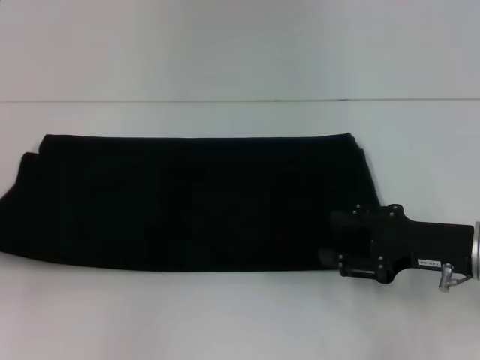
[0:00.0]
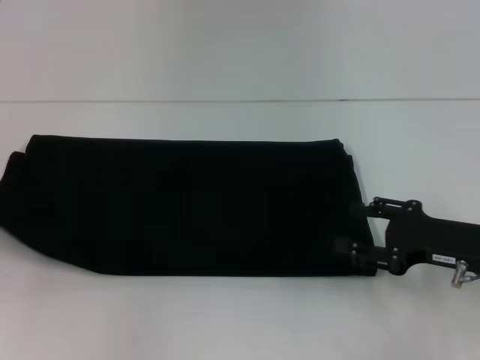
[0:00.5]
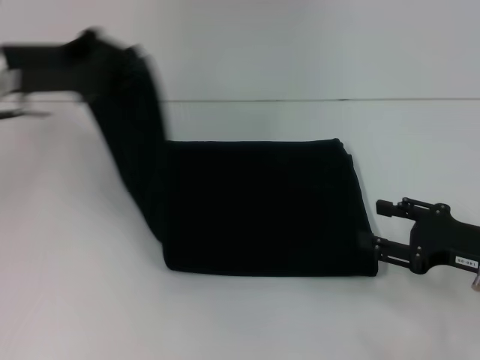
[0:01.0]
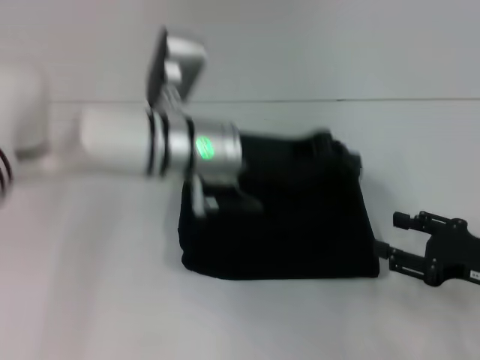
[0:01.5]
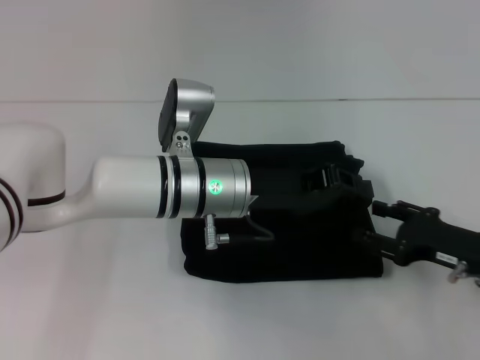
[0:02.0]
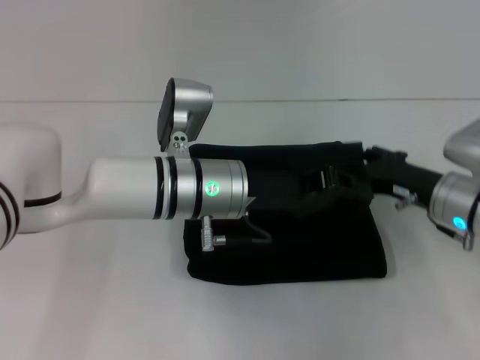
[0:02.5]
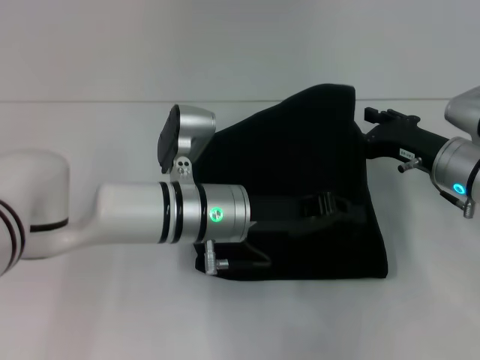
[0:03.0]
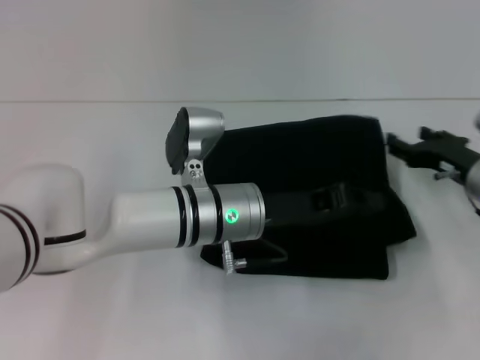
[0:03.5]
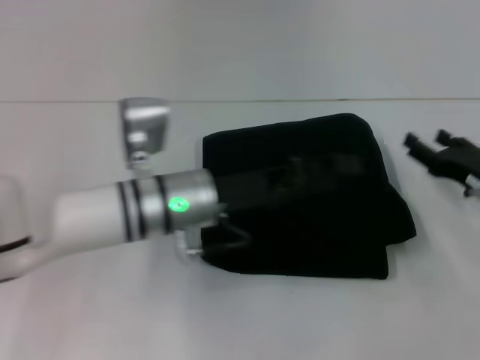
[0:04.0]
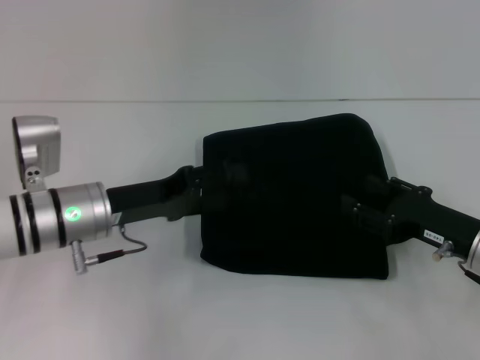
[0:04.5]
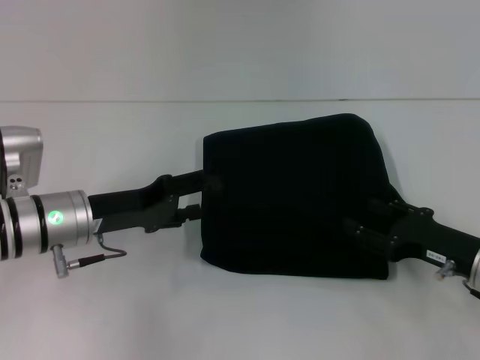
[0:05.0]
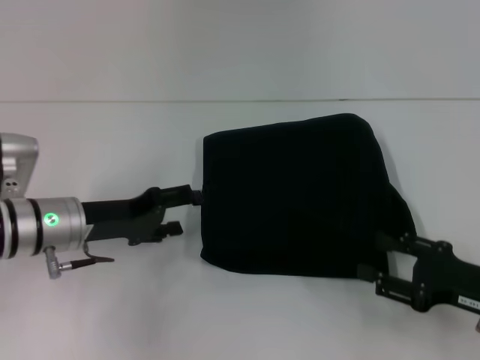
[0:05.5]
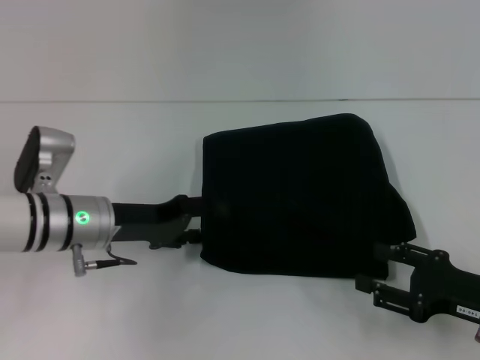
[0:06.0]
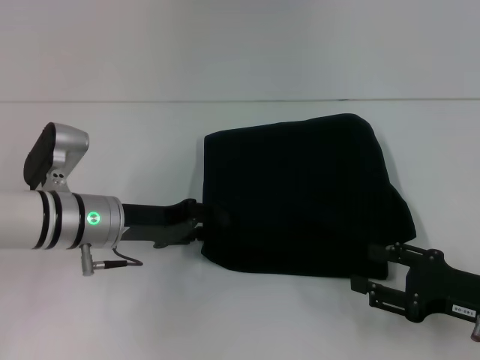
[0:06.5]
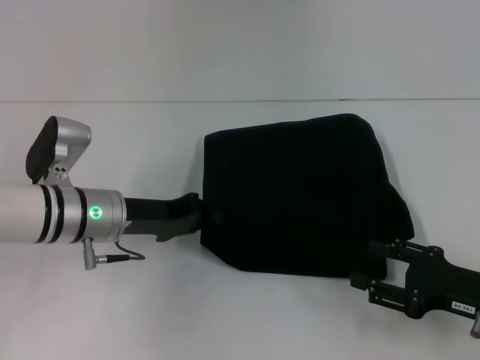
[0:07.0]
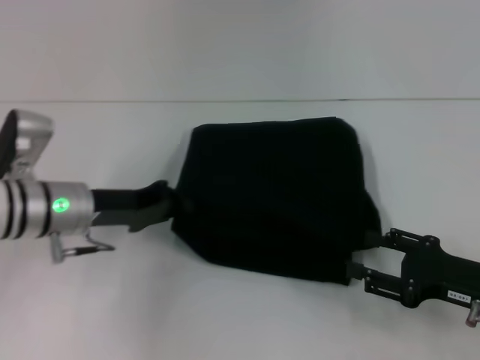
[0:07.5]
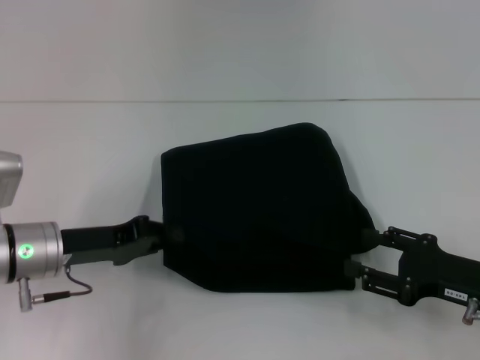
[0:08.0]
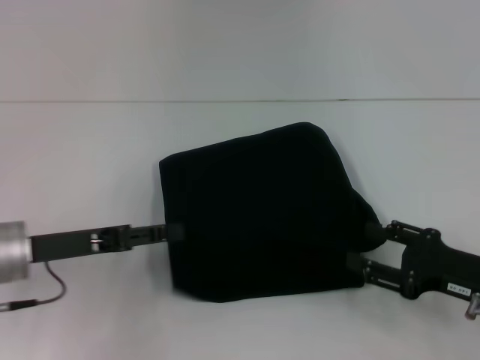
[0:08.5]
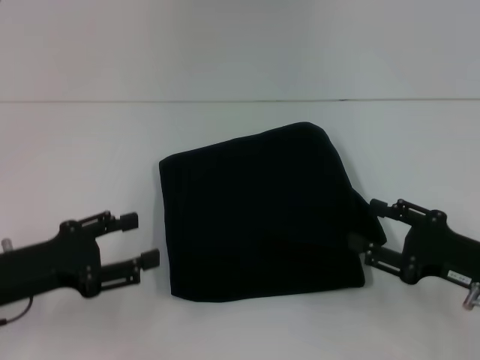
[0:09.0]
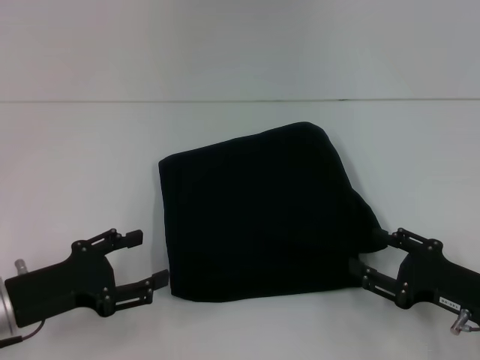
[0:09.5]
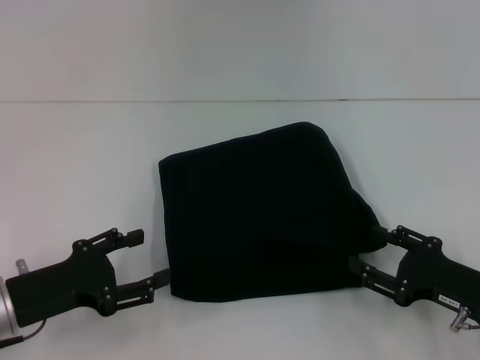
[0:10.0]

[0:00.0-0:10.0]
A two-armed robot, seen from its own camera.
Step, 0.0 to 2.0 s: Fold the clothes with your left hand.
0.0 to 2.0 s: The left gripper is displaced to the right by approximately 35 cm.
2.0 to 4.0 s: The left gripper opens.
4.0 to 6.0 s: The left gripper is displaced to the left by about 10 cm, and opens its fingers. Meanwhile the right gripper is displaced backward by roughly 10 cm.
6.0 to 8.0 s: The left gripper moves roughly 5 cm, and closes.
8.0 to 10.0 s: The left gripper goes about 5 cm backward, and opens its fingers.

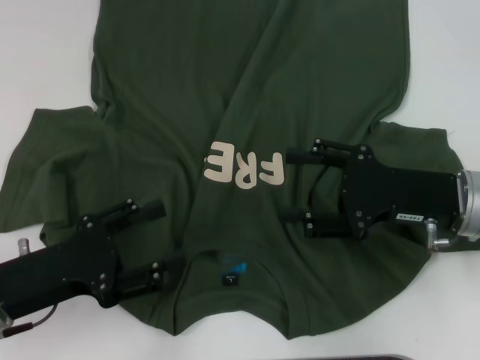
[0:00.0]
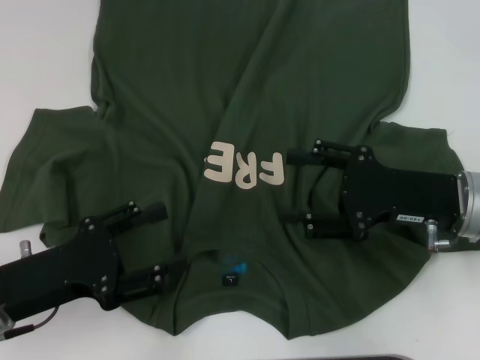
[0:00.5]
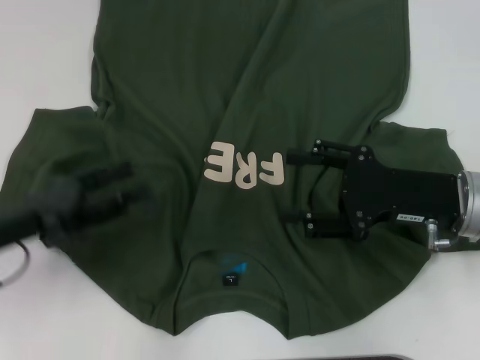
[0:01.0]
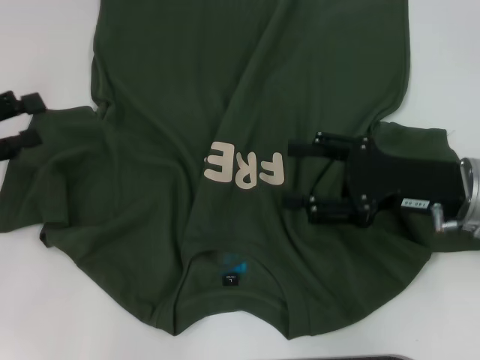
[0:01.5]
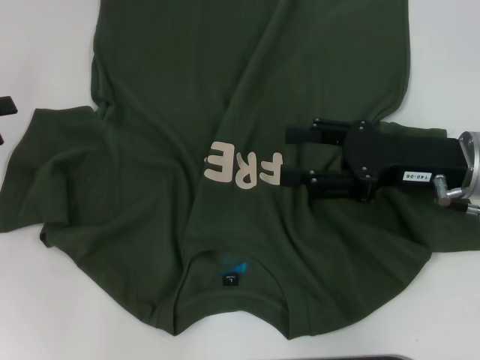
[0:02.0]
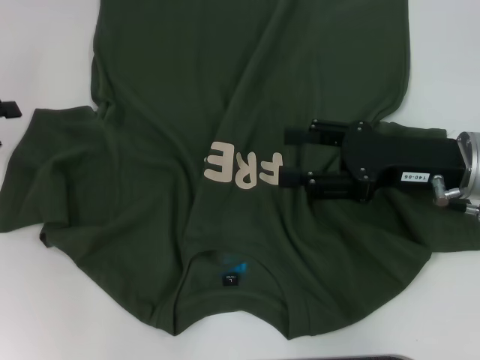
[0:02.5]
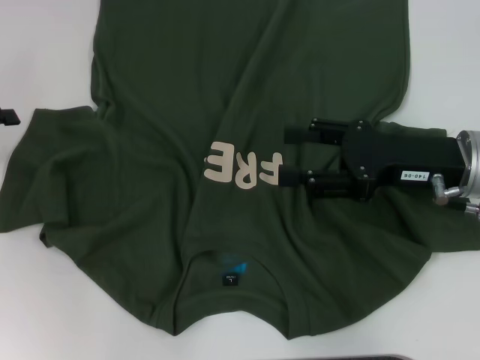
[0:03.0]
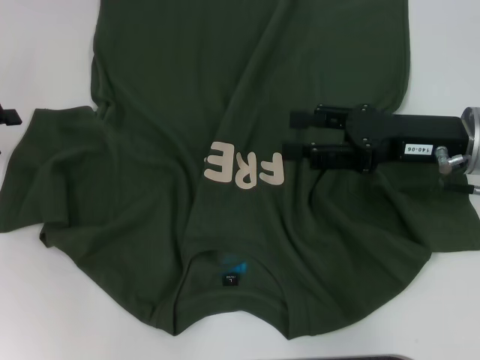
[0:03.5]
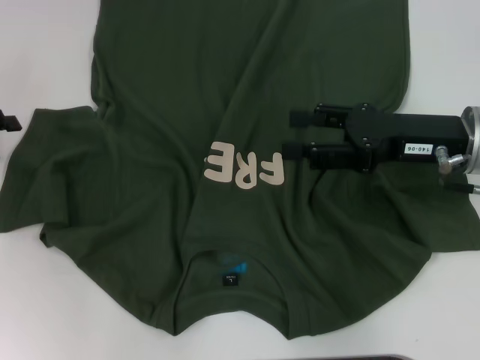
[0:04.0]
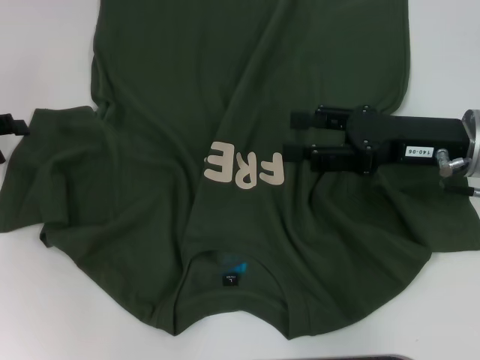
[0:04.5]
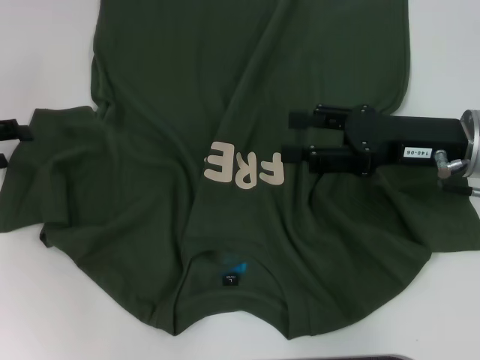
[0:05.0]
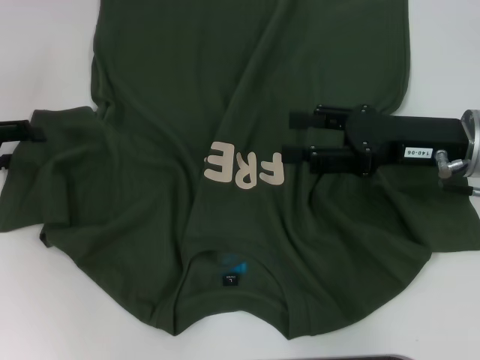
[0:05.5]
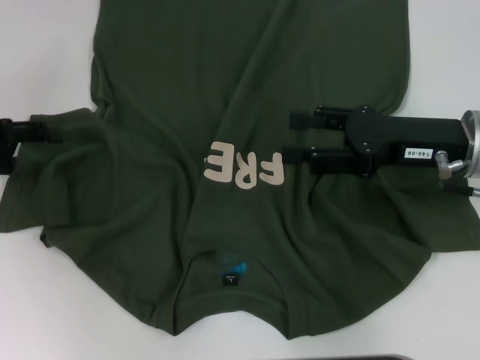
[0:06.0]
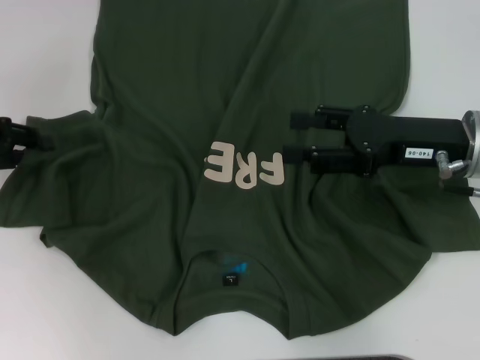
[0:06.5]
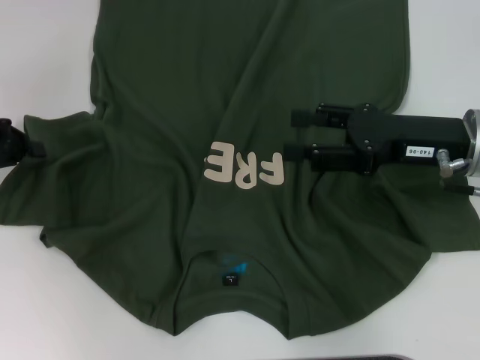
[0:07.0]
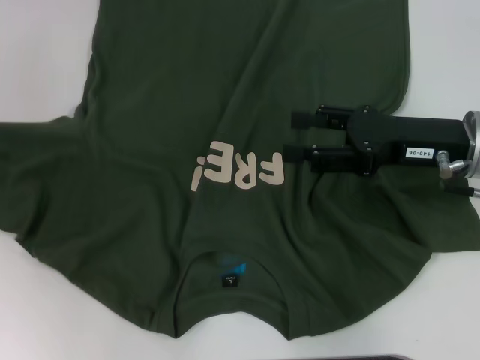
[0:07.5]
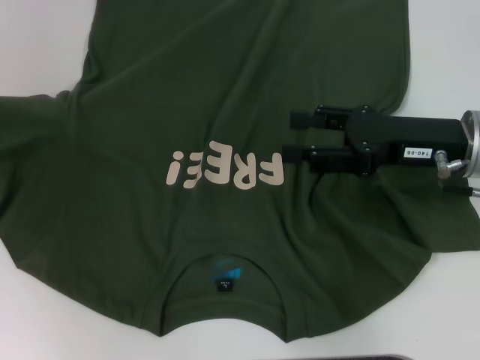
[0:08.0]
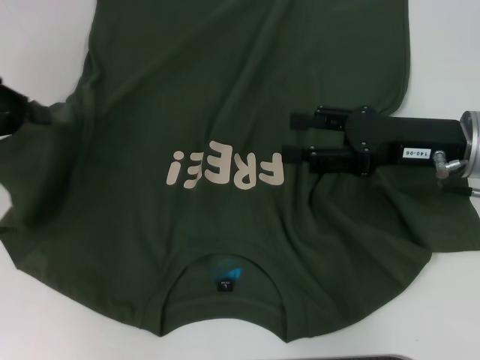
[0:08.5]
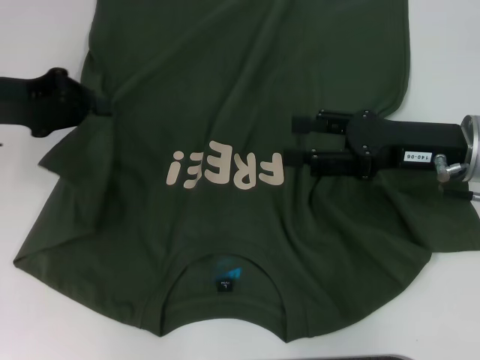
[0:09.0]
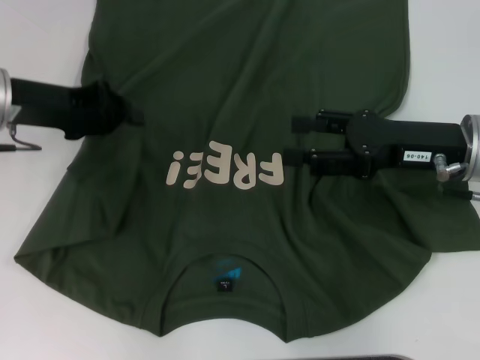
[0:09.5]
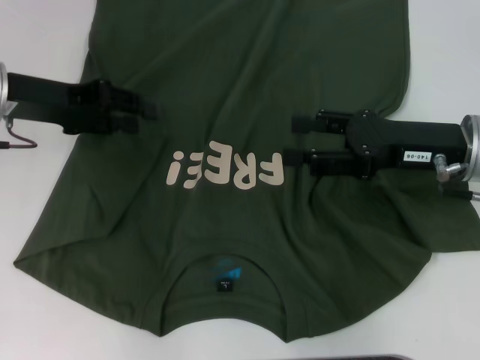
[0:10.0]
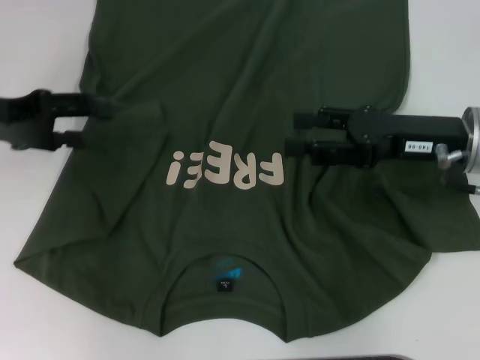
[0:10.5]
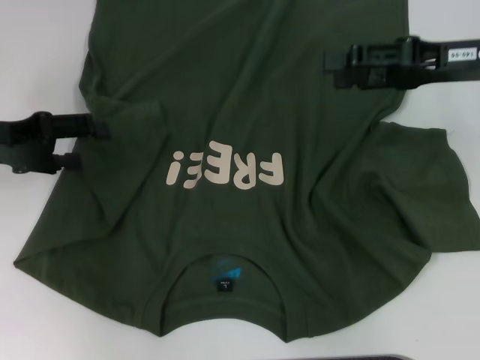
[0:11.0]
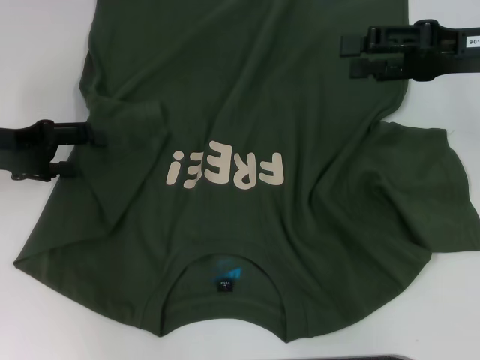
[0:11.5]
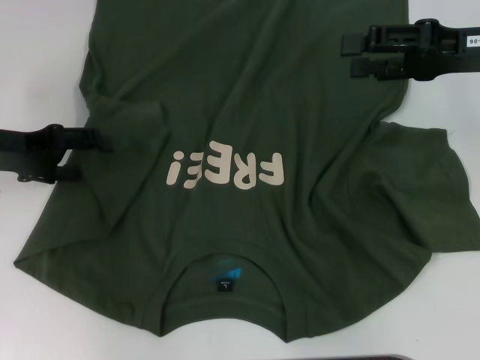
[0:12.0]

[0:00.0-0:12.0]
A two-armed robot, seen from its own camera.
Step, 0.0 to 10.0 s: Fold the bottom left sleeve with your left hand.
0.0 to 2.0 s: The left gripper heads to the left, forward and upward, covering approximately 20 cm.
2.0 to 6.0 s: The grippers make only small movements.
6.0 to 8.0 s: The left gripper shifts approximately 10 cm upward and to the left, and closes up.
8.0 to 10.0 s: The left gripper moves to the right, roughly 15 cm.
10.0 to 12.0 s: The left gripper shifts by about 5 cm, and opens up, while the right gripper moves upward and forward, roughly 10 cm.

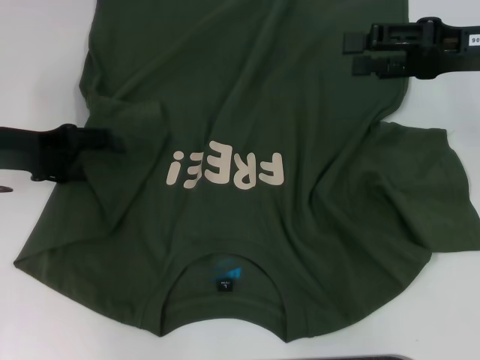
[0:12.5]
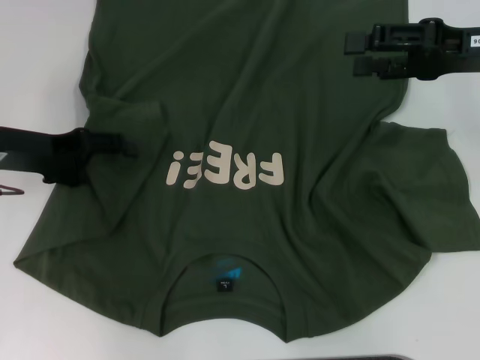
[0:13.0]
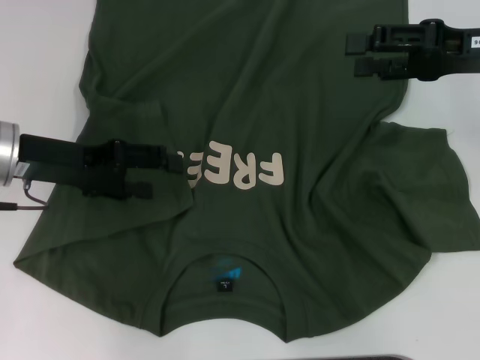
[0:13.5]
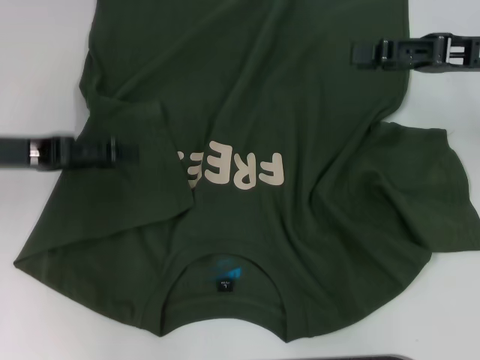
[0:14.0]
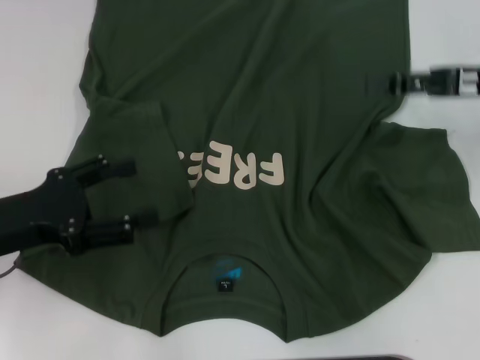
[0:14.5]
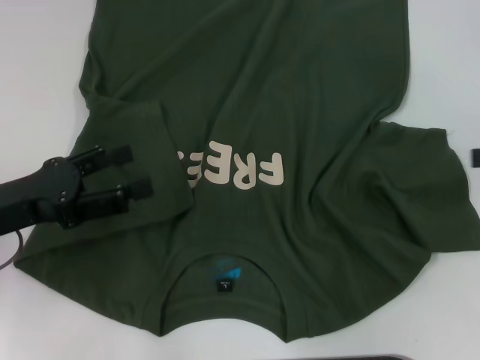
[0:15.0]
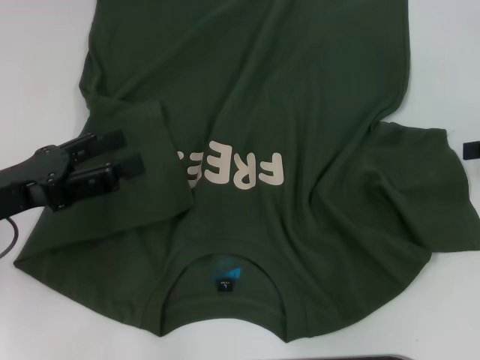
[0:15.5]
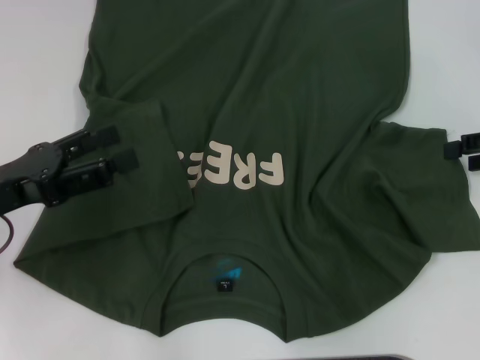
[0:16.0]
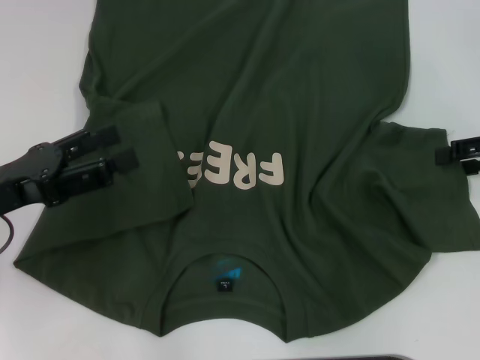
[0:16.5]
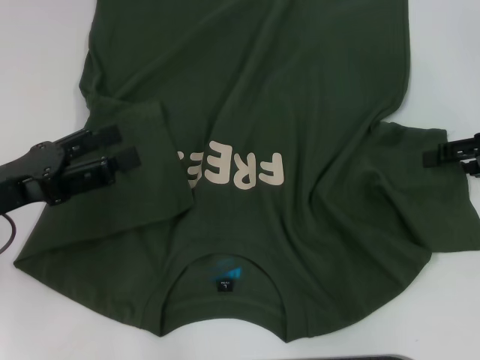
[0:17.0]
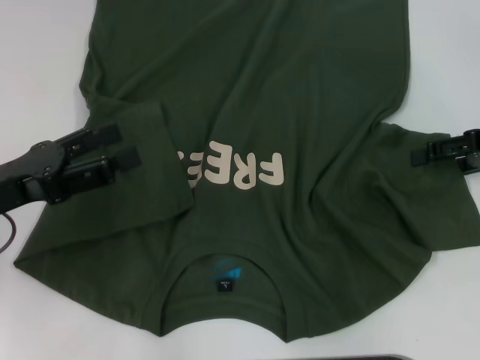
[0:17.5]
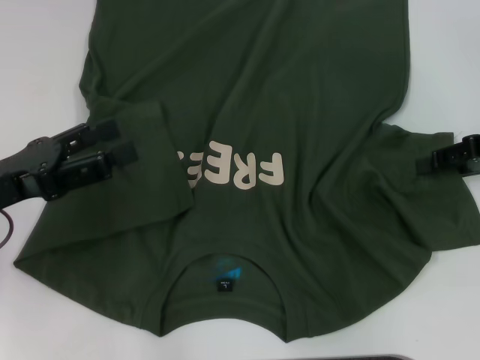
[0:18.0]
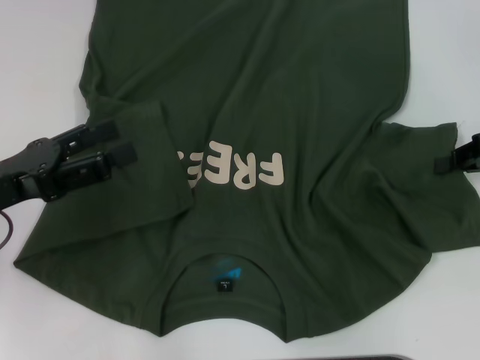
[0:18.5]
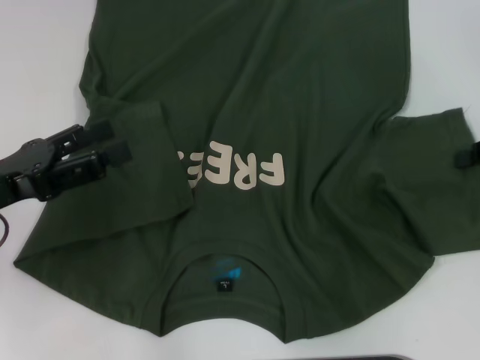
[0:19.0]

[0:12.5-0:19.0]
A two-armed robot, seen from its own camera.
12.5 to 14.5 s: The left gripper shifts about 10 cm backward.
14.5 to 17.0 s: The right gripper heads to the right, covering approximately 5 cm.
17.0 to 19.0 s: The right gripper closes.
